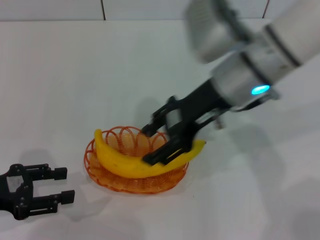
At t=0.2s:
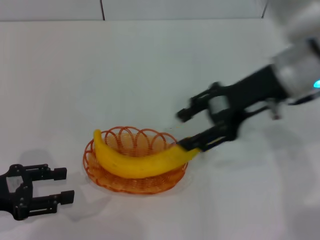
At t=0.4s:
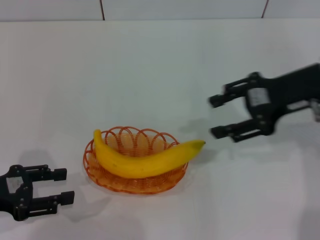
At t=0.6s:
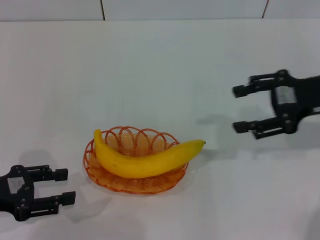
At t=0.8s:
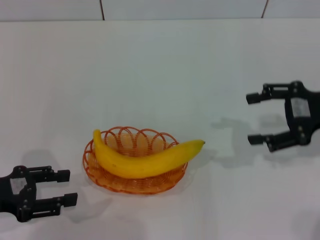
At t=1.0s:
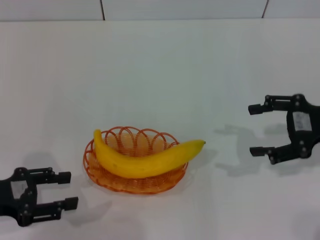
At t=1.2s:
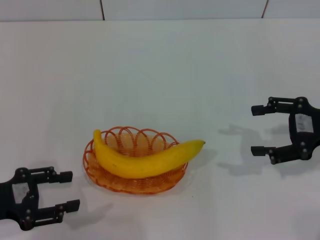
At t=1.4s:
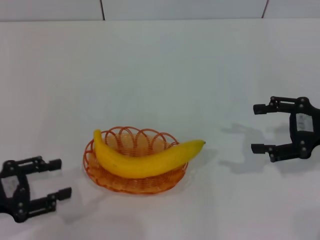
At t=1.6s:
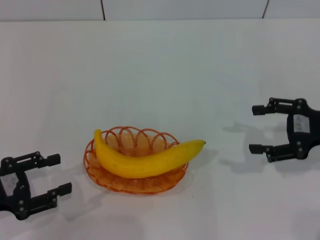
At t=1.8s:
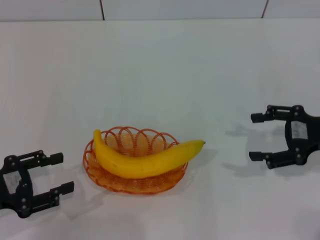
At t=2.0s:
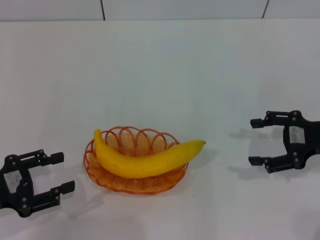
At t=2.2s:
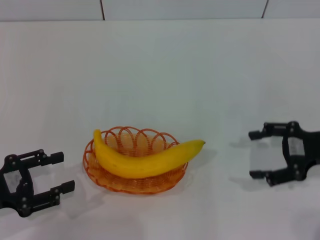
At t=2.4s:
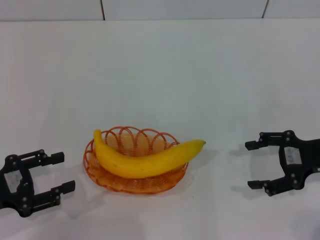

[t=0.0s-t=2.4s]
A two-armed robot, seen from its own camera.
t=0.0s to t=1.2s: The right gripper heads to the right, covering some 20 cm, and opens.
t=1.2s to t=2.4s: The grippers move only a little.
